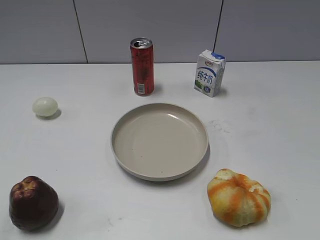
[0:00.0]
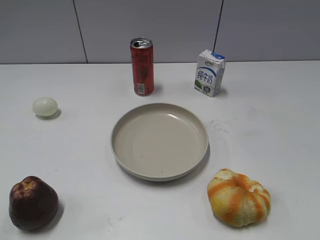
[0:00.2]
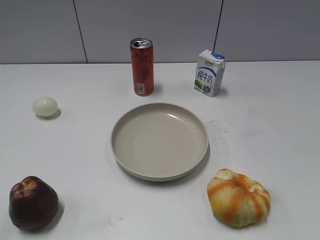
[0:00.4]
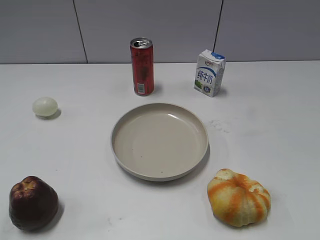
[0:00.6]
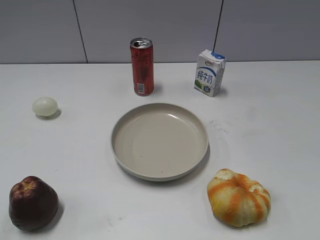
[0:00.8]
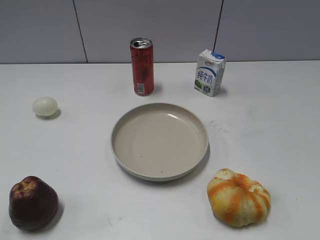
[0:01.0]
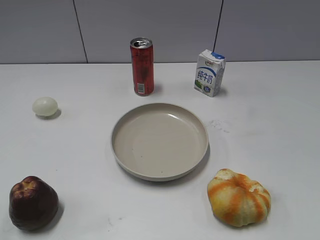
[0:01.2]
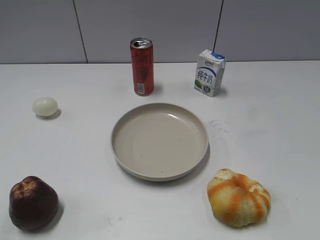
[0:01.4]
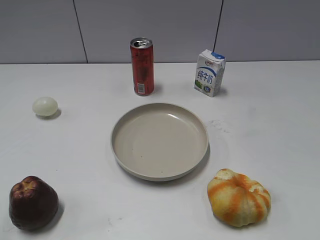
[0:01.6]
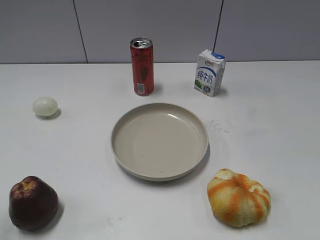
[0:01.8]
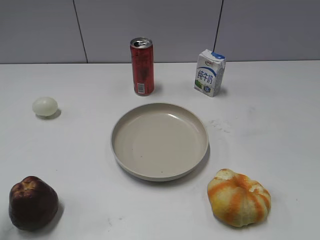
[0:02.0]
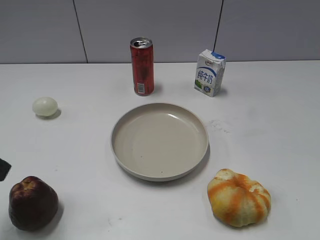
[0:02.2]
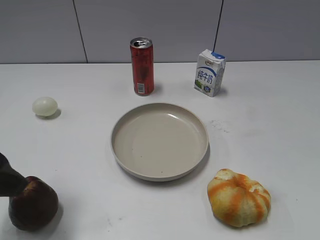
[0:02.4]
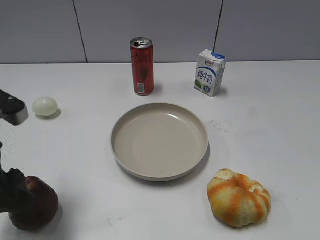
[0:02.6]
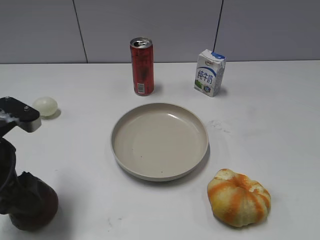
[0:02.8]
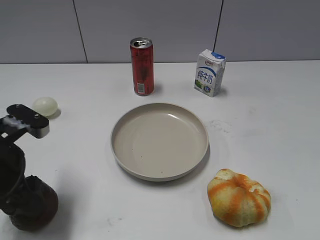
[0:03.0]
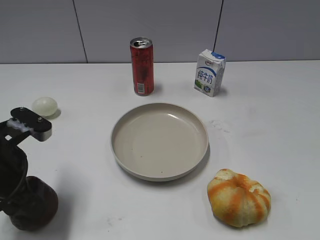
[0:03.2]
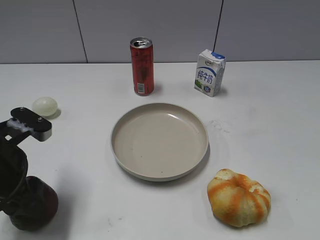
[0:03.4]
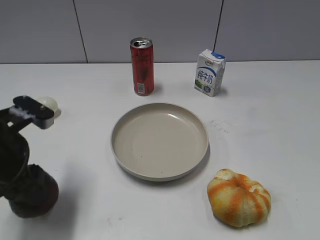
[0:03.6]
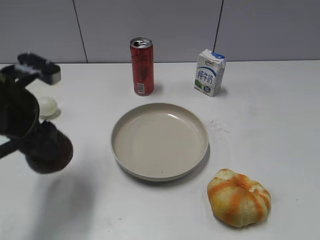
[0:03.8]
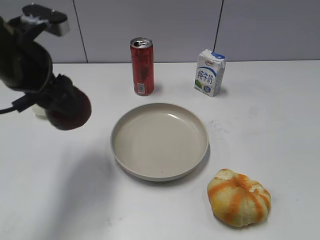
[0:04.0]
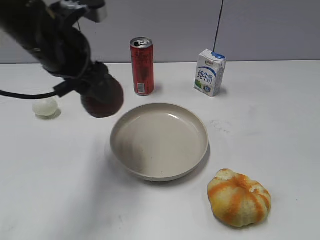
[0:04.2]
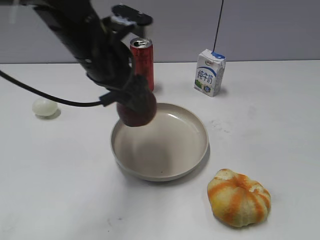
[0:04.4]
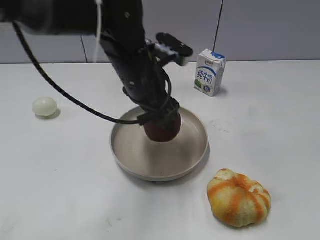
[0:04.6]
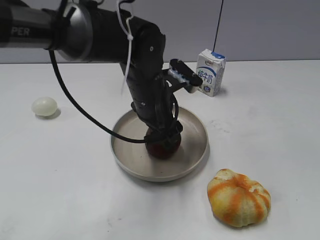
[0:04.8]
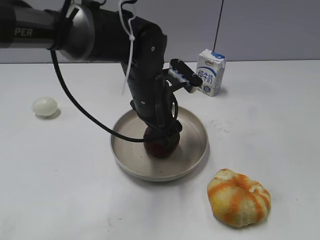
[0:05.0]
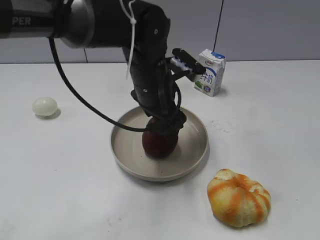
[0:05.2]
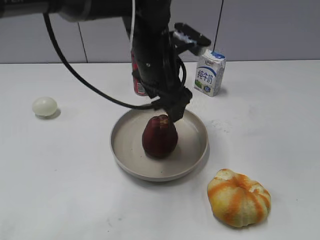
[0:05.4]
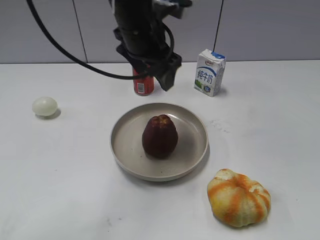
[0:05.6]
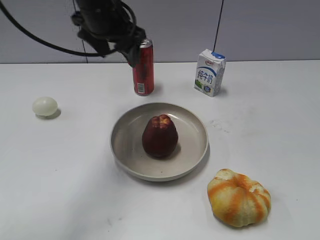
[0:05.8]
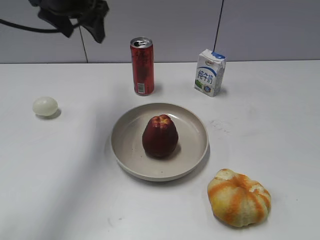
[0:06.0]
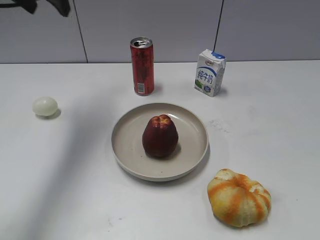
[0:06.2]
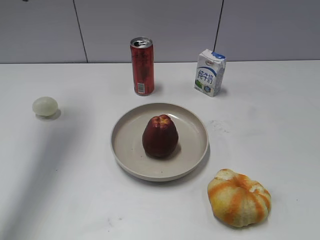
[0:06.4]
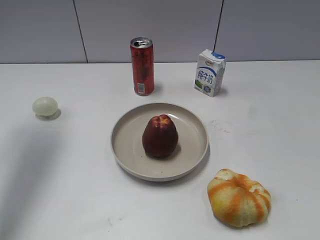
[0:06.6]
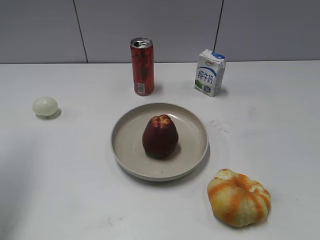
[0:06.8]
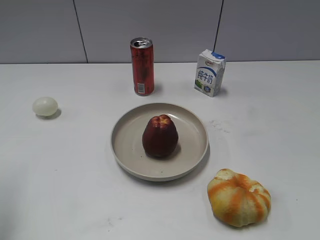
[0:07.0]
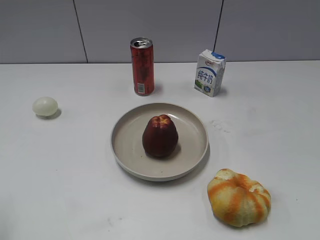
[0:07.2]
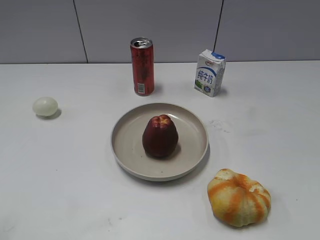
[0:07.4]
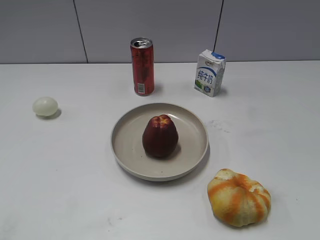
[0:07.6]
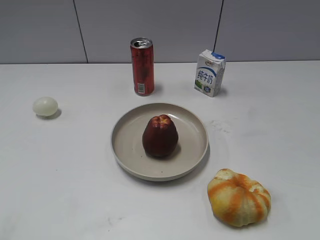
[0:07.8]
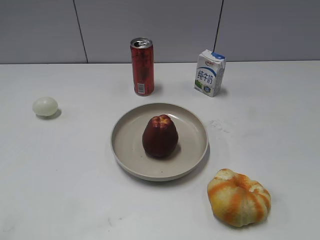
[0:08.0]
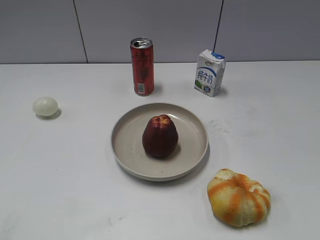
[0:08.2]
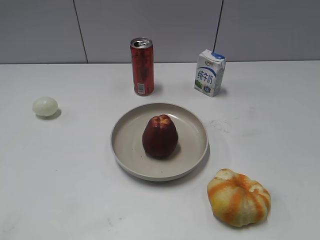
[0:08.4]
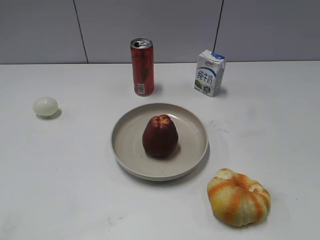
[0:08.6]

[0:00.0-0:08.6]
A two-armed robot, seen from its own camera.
Step, 2.2 to 3.4 s: Grasp the apple with left gripper.
Step, 3.6 to 5.4 s: Place the apple on the plate with left gripper.
1.4 to 2.8 s: The left gripper is displaced forward, downward and to the right by about 20 cm.
2.8 to 4.4 s: The left gripper moves to the right and forward, some 20 cm.
4.4 to 5.8 s: The left gripper goes about 10 cm forward, travels downward and back again, some 10 cm each way, and opens.
5.8 to 7.2 s: The left gripper heads backward and to the left, covering roughly 35 cm.

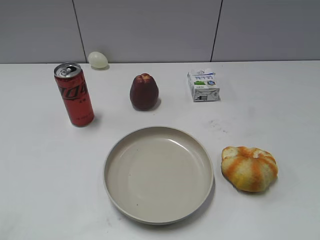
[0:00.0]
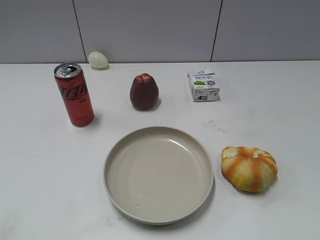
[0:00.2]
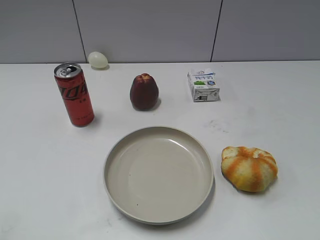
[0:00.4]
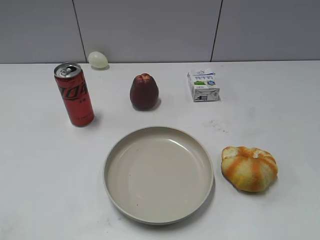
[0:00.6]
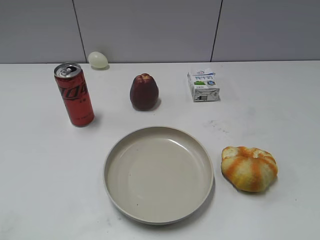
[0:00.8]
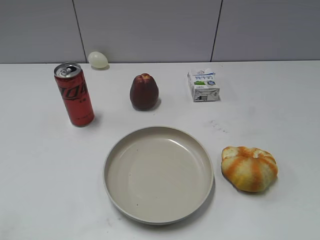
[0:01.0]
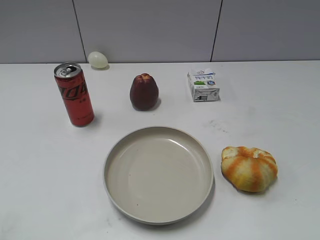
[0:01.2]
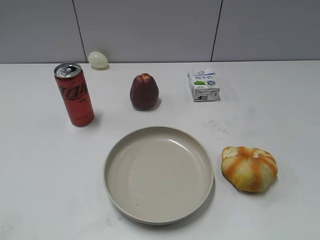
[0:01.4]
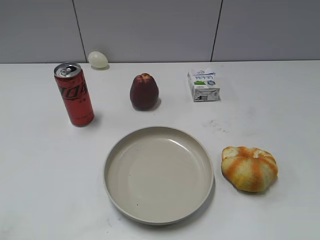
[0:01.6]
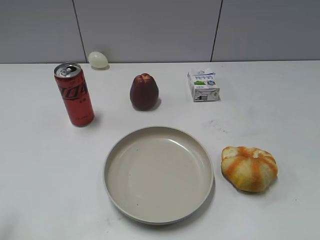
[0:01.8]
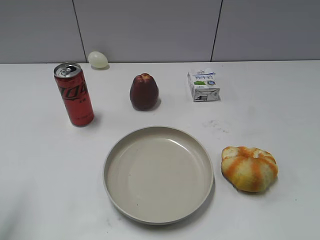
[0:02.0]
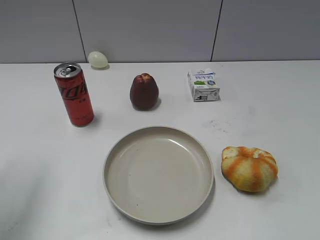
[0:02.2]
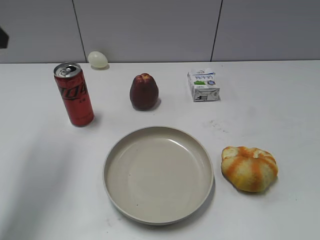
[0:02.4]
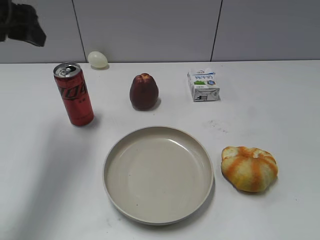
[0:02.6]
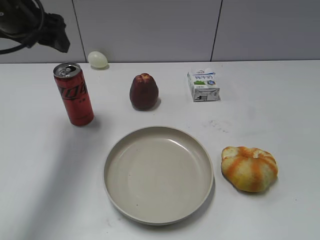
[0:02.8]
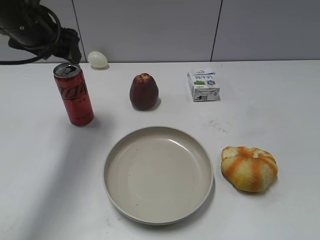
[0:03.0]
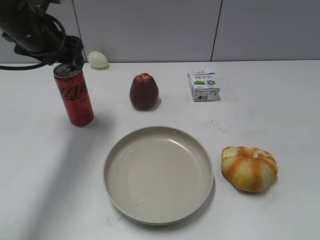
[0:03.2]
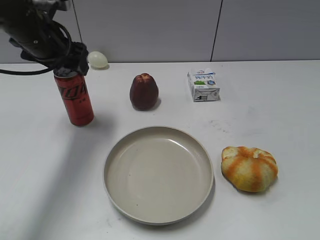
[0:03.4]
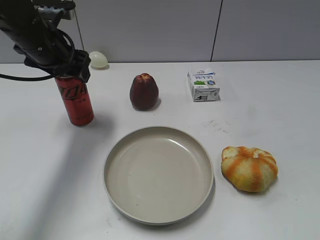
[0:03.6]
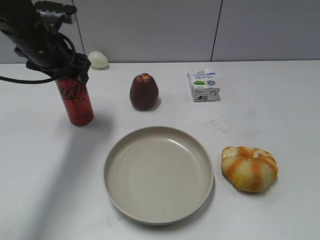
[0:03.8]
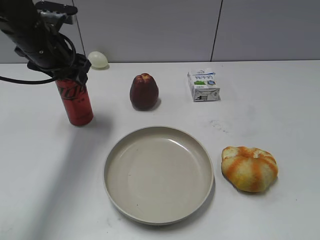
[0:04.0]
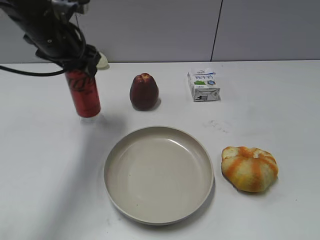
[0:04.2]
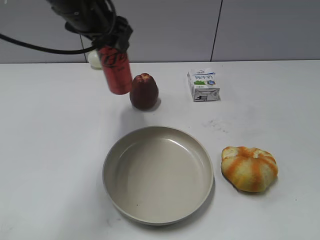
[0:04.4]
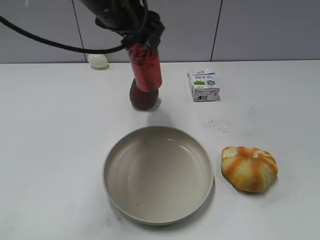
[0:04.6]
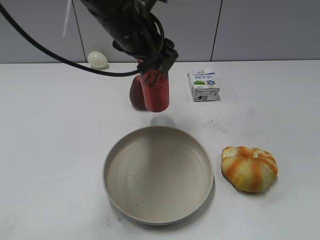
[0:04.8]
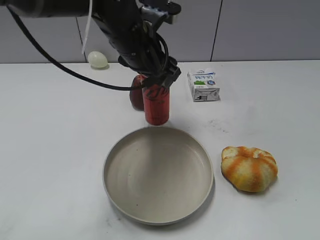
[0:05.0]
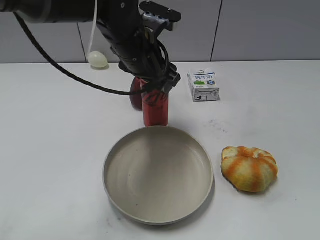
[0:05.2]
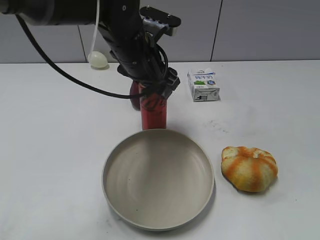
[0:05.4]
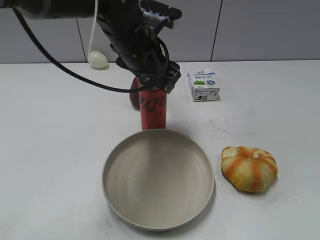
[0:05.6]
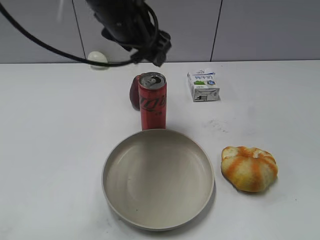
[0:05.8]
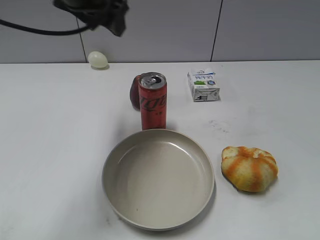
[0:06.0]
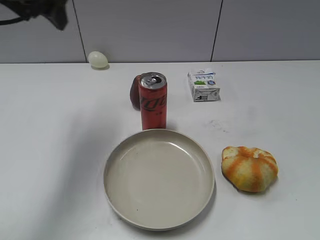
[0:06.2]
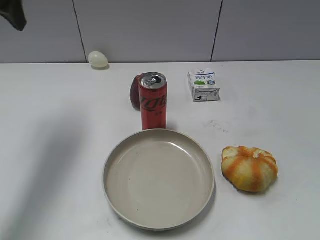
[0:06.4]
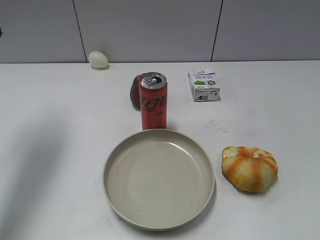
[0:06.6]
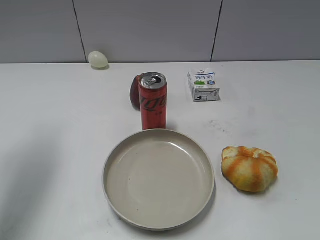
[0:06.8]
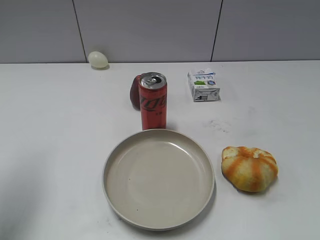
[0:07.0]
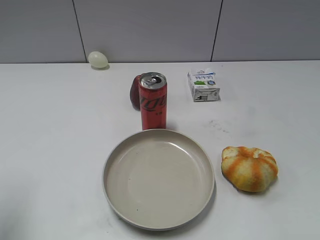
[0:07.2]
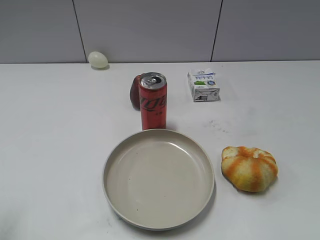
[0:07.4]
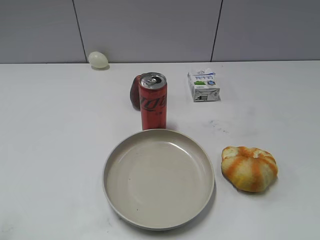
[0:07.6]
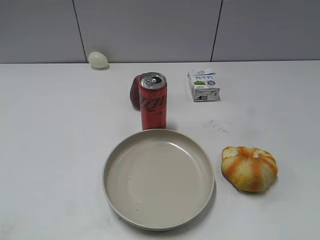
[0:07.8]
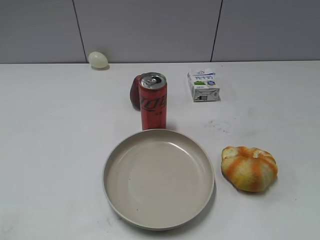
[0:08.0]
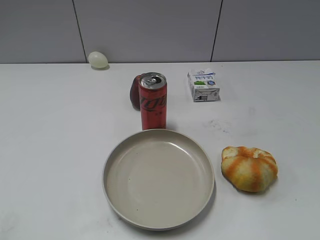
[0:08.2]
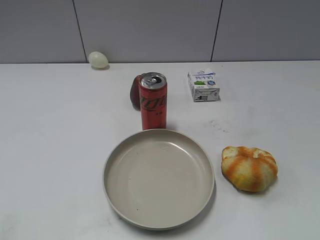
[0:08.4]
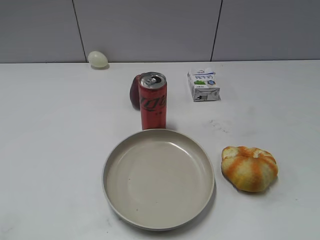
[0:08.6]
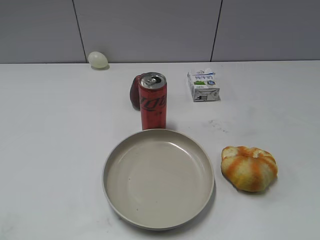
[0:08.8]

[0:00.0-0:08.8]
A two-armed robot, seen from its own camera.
Step, 1.4 to 4.0 s: Grasp the cola with left gripper.
Step, 4.2 to 5.6 s: Place the cola on the table with left gripper.
1.4 to 3.0 s: The left gripper is displaced forward by some 35 cm, and opens up.
3.0 to 4.4 s: The left gripper moves to the right, roughly 10 cm, and closes.
4.4 to 5.8 s: The left gripper goes roughly 5 cm to the right, goes downward and returns, roughly 5 cm each way, and opens up.
5.8 to 7.4 s: The left gripper is displaced to the left and backward by roughly 35 cm, and closes its fingers.

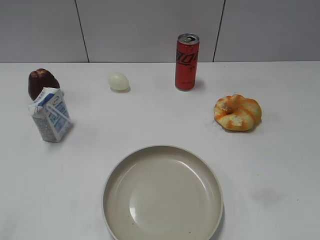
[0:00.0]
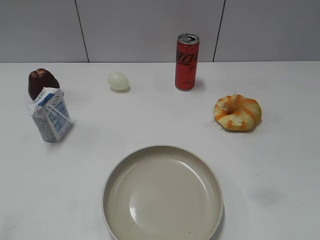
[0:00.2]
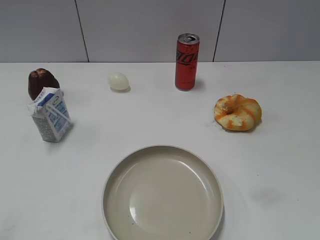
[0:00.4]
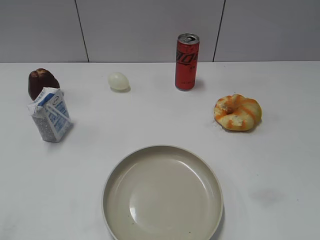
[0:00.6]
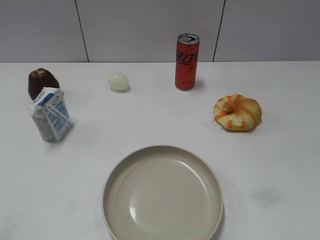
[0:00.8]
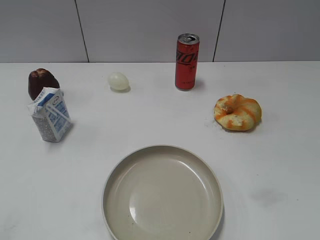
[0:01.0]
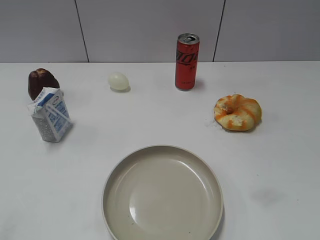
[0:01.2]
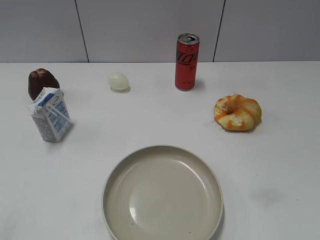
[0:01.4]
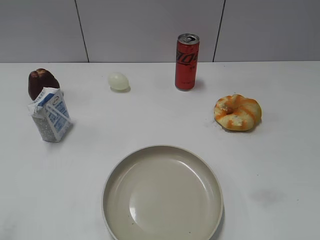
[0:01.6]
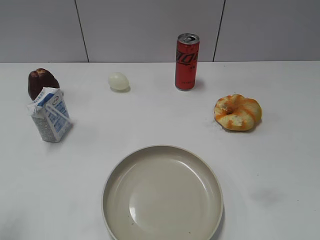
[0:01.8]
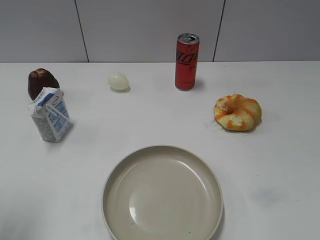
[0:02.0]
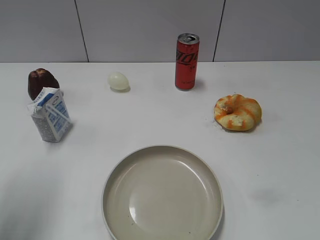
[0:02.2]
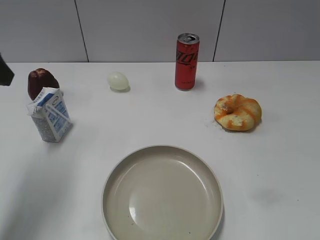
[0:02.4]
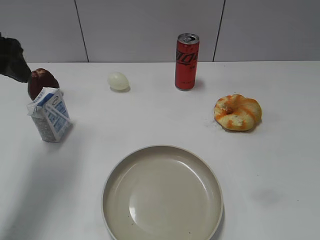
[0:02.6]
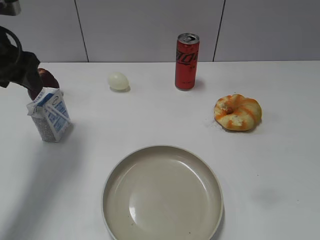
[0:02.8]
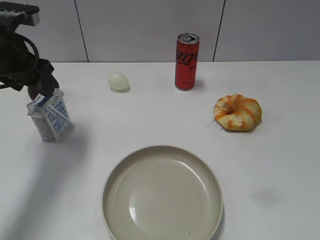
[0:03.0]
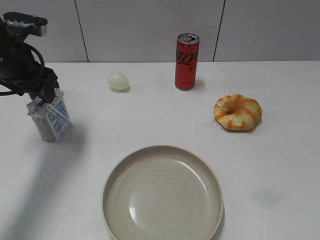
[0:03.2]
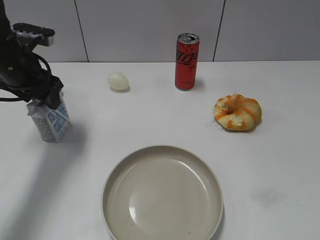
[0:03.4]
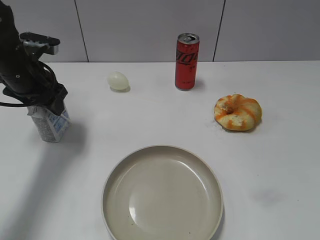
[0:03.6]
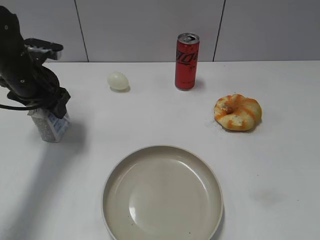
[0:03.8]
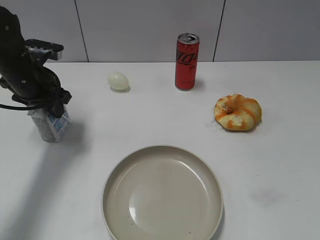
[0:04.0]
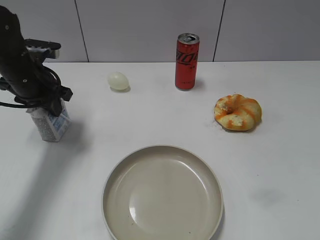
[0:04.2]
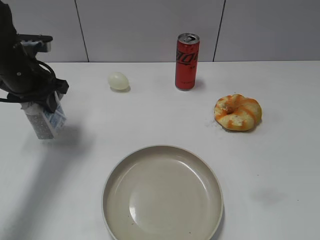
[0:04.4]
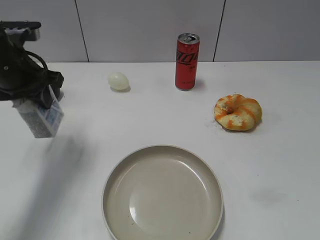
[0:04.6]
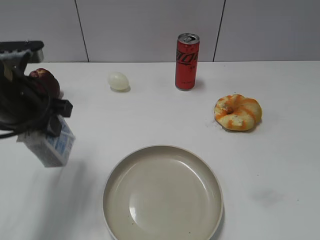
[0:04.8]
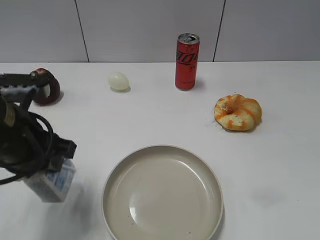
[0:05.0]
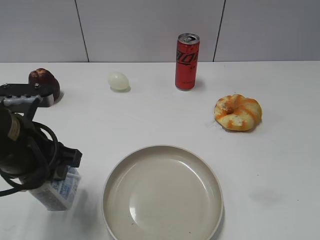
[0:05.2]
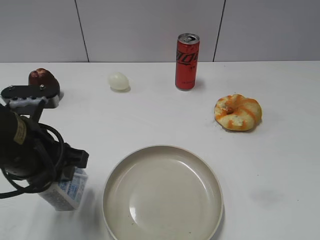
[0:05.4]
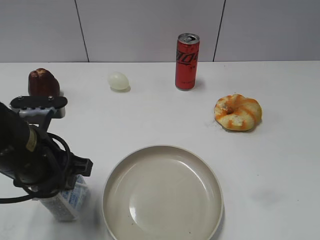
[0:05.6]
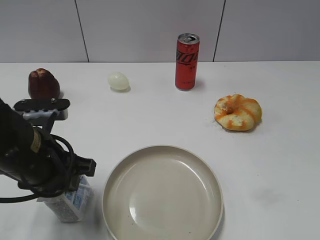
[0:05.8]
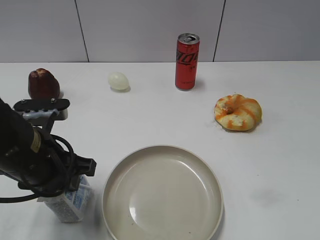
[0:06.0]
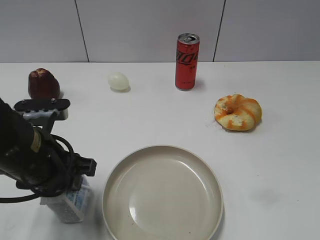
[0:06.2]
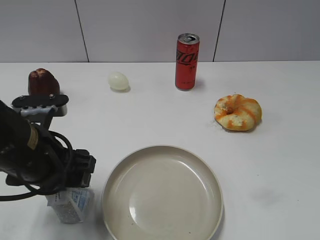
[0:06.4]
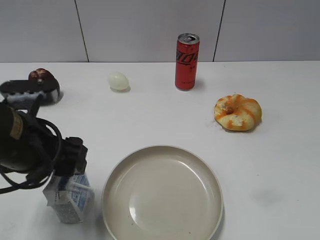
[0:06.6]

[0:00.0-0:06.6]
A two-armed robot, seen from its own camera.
Step, 0.6 to 4.2 s: Grasp the milk with left gripper.
Step, 4.4 to 6.4 s: Place the milk on the table with left gripper.
1.6 to 3.2 s: The left gripper travels forward by about 30 cm.
3.2 to 5.0 s: The left gripper goes some 15 cm backward, and closes its fingers.
5.0 to 6.6 s: The left gripper opens its fingers.
